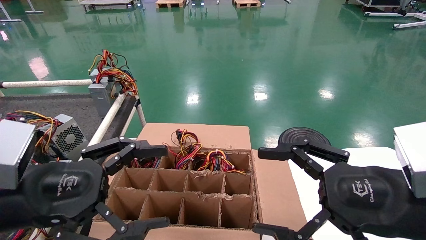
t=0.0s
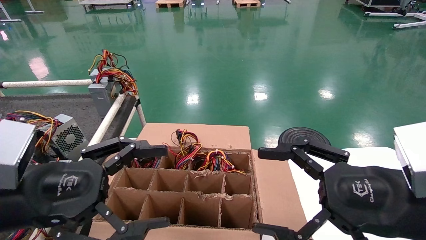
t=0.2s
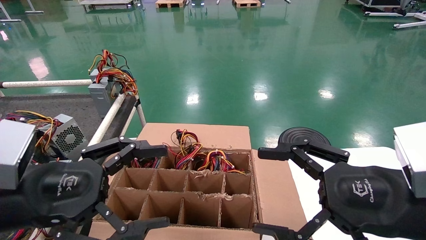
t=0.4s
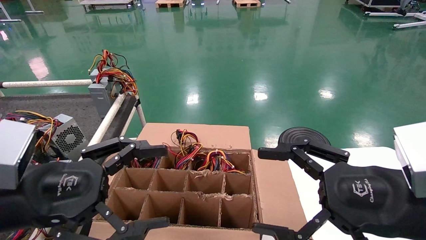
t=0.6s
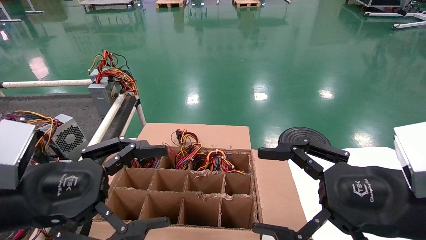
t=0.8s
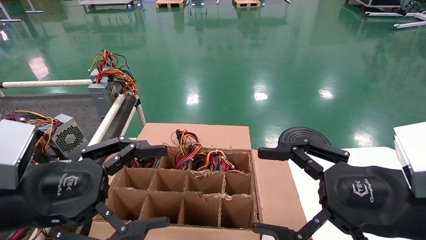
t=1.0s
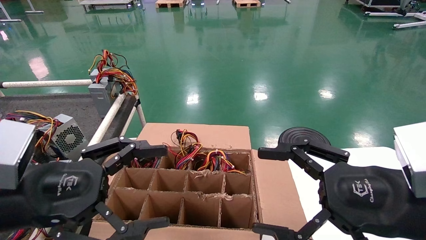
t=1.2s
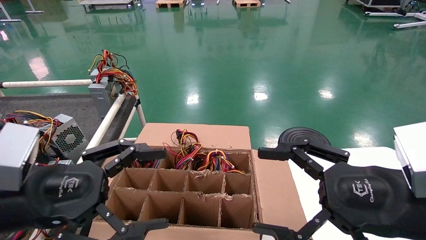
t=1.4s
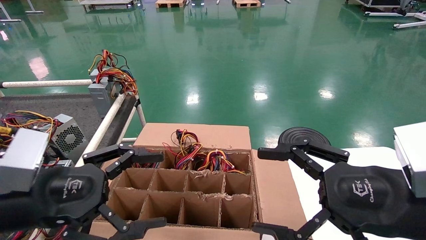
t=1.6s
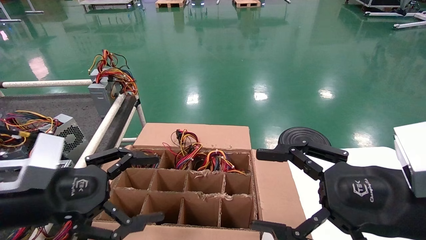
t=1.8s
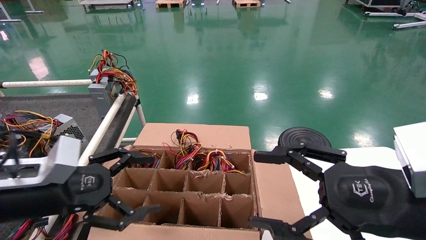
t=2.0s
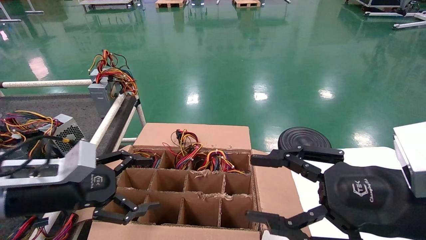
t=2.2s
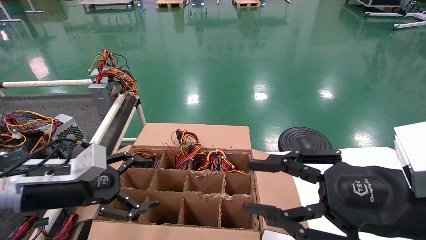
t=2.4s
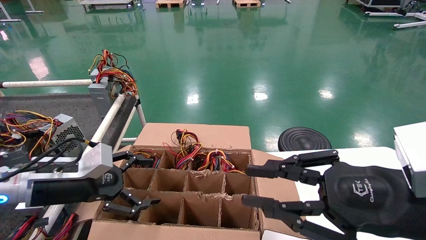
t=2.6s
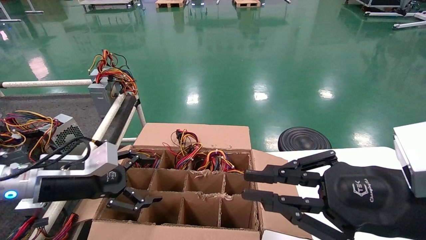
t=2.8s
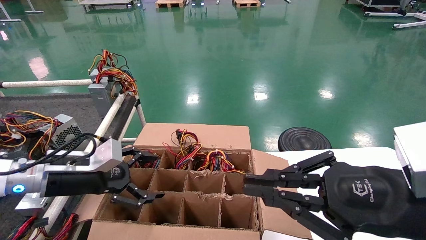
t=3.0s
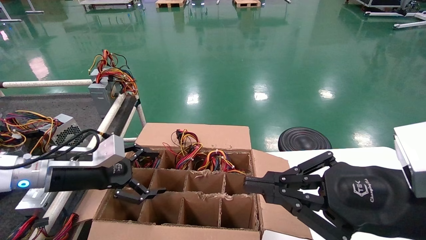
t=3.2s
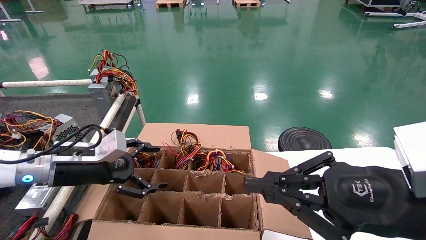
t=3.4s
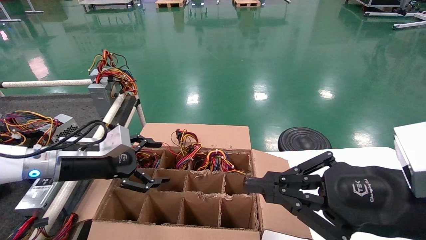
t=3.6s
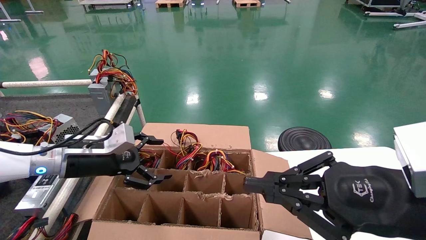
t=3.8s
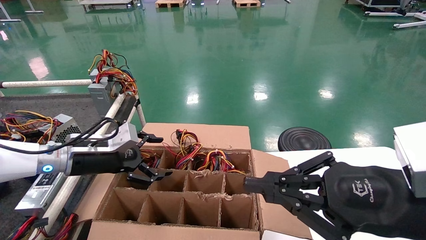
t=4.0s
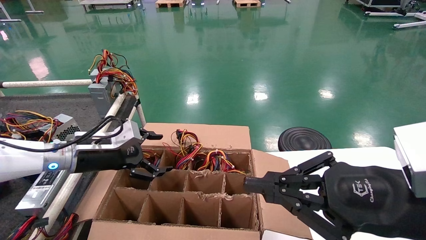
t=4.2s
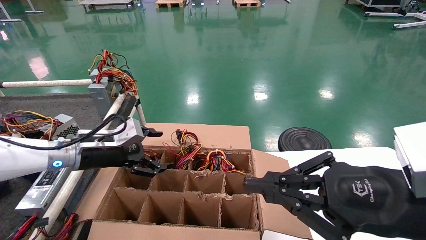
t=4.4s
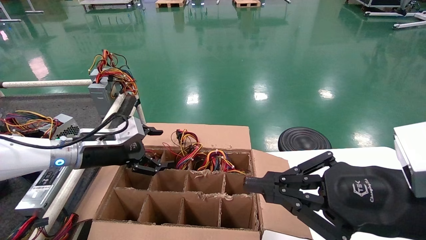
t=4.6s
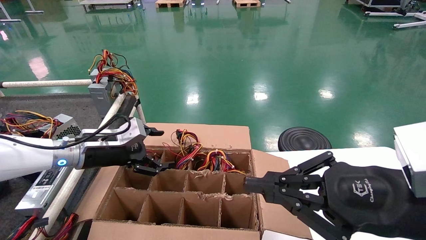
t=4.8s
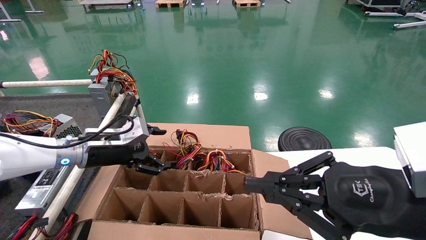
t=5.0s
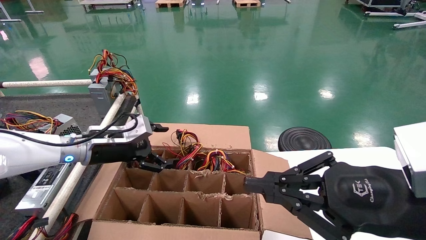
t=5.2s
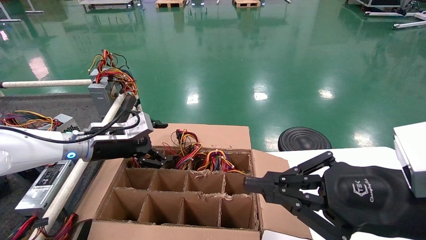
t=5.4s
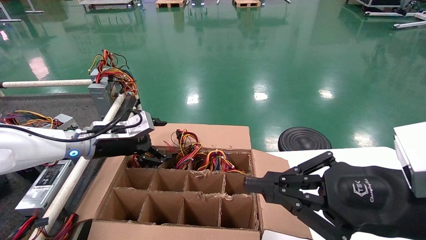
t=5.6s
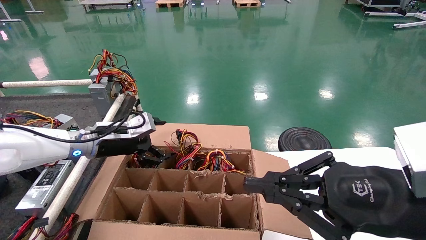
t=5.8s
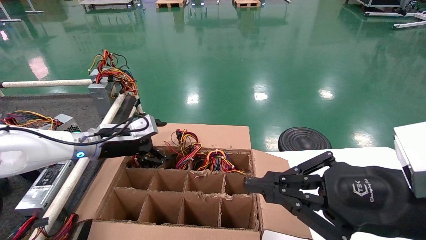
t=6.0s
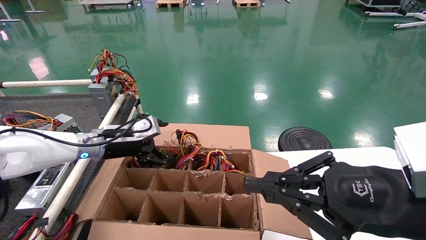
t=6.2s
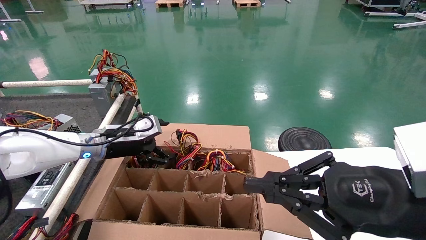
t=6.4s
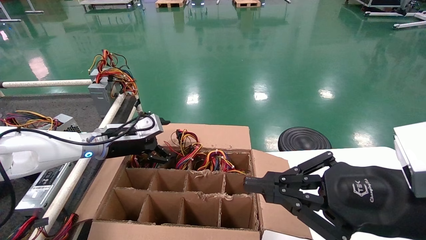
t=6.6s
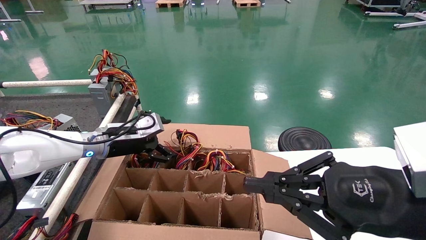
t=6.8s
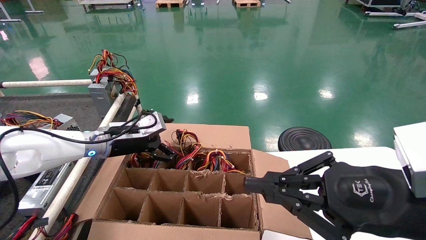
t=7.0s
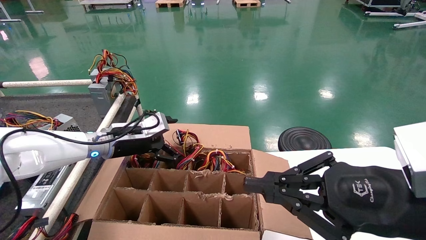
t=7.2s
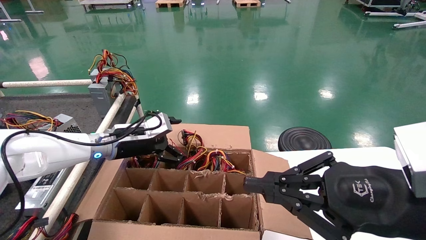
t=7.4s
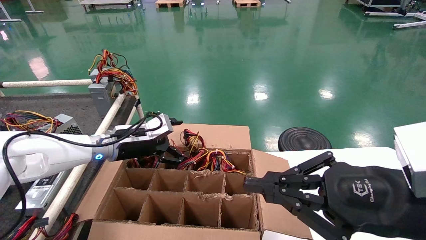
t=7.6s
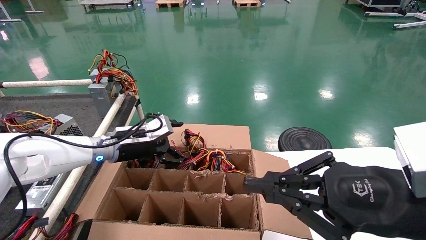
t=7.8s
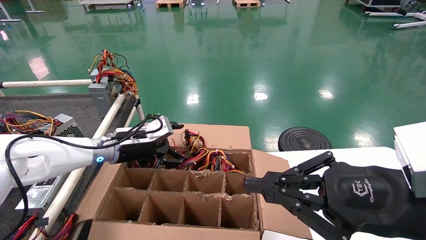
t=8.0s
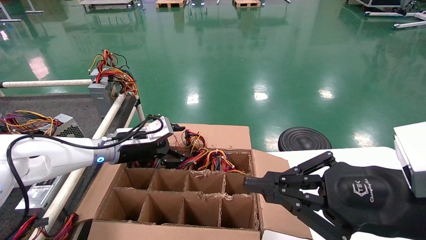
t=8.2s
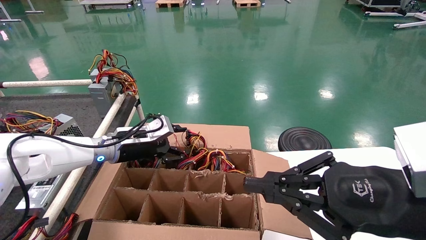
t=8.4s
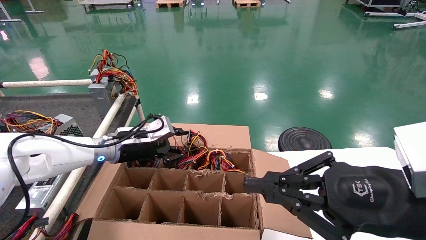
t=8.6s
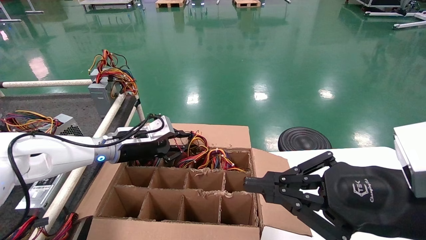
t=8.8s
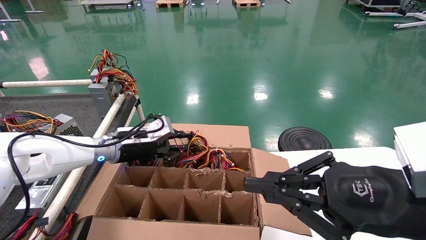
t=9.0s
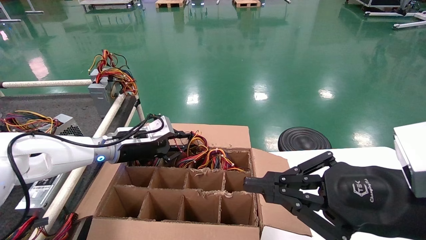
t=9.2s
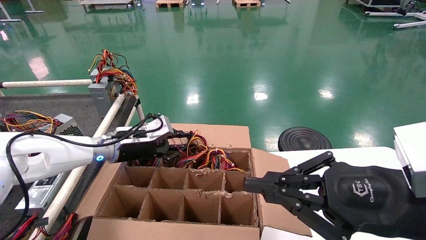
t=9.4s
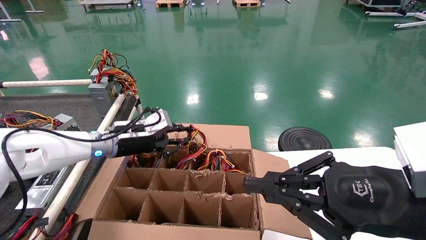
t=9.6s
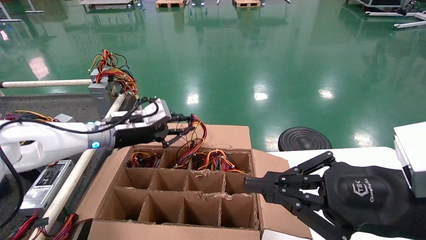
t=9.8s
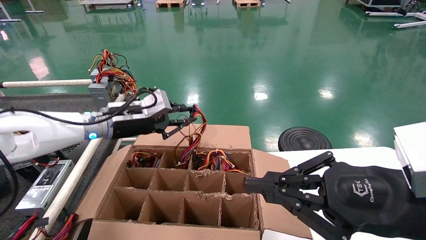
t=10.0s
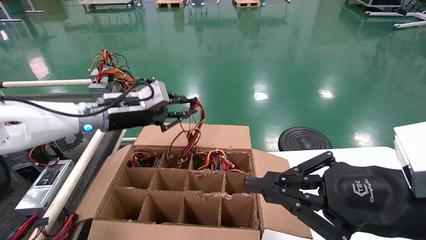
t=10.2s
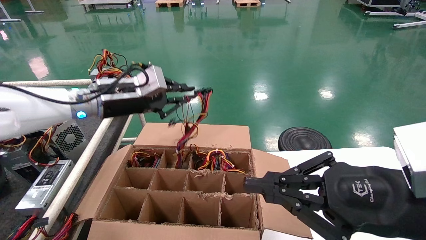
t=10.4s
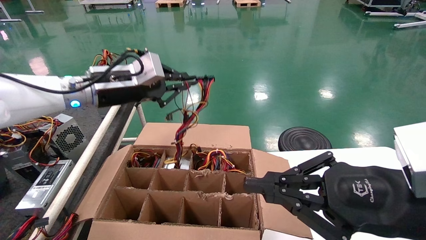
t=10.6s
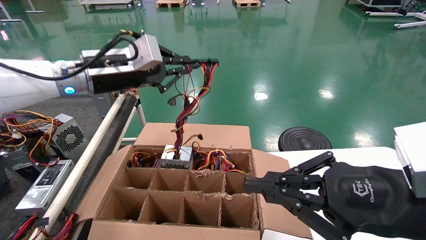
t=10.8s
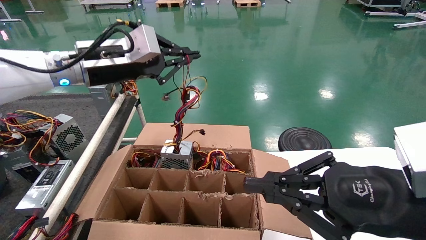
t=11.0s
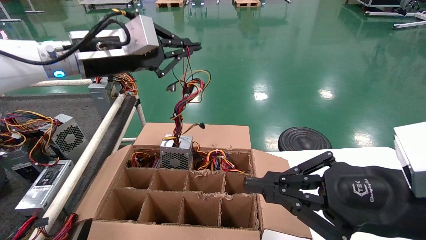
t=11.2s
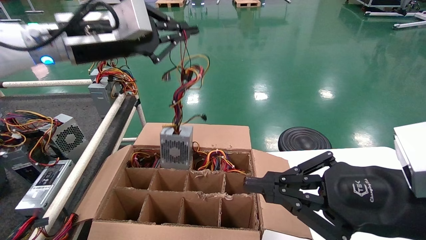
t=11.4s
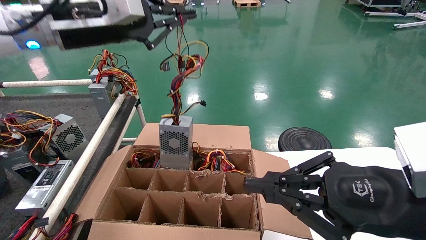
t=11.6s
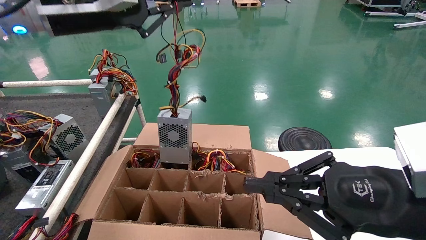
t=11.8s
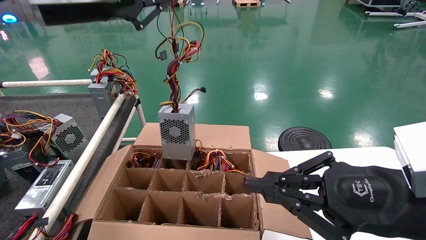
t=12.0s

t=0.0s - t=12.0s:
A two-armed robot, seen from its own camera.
Step, t=1.0s - t=9.8s: Grab and lift the power supply from the large box.
t=0.0s - t=1.6s: The grippers make only small movements.
t=1.6s - t=3.0s: The right gripper closes its fingers. The left gripper goes roughly 15 cm forward.
t=3.0s - t=4.4s: The left gripper heads forward, covering roughly 5 cm.
t=4.4s - t=6.0s: The grippers make only small movements.
t=6.0s - t=7.6s: The grippers make only small movements.
t=7.6s - t=9.0s: The left gripper closes up.
t=9.0s - t=10.4s: The left gripper goes roughly 15 cm upward.
t=10.4s - t=12.0s: The left gripper goes approximately 20 cm upward and backward.

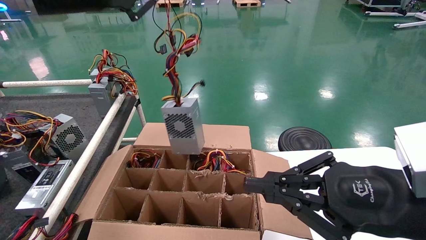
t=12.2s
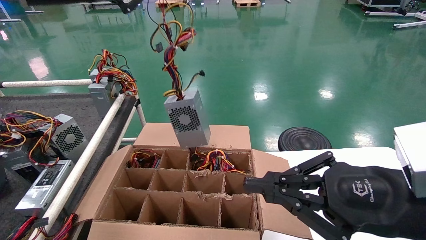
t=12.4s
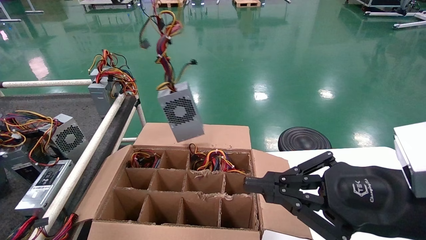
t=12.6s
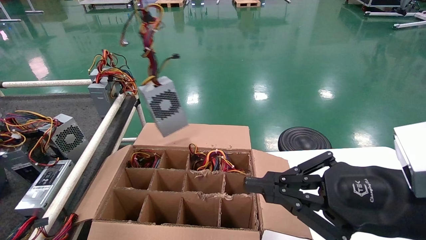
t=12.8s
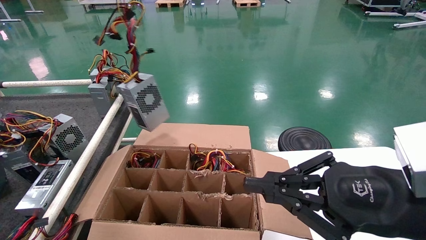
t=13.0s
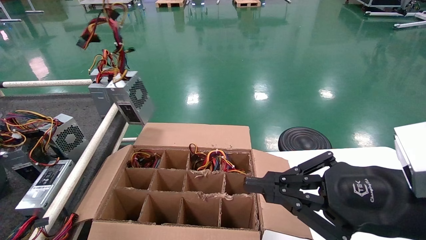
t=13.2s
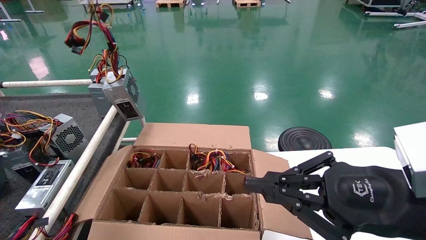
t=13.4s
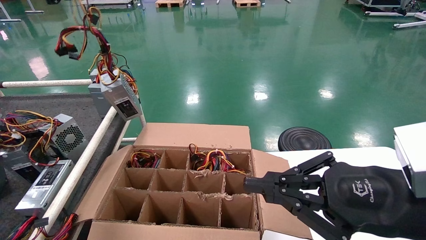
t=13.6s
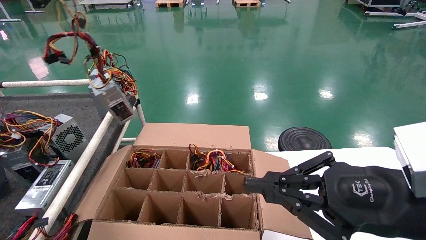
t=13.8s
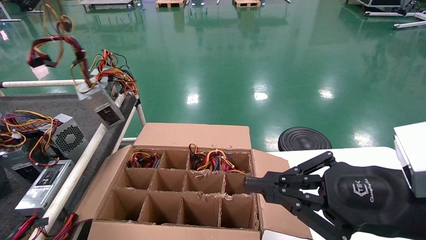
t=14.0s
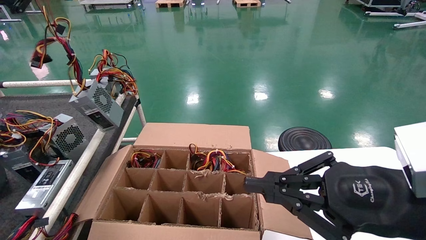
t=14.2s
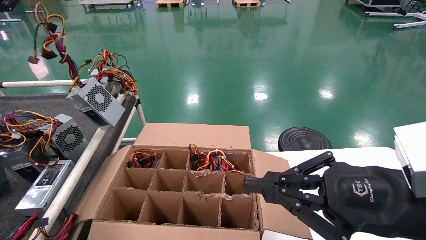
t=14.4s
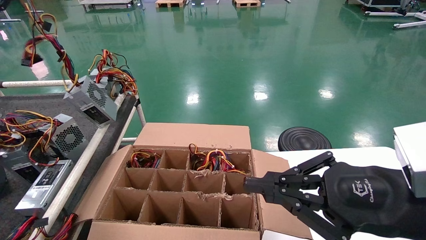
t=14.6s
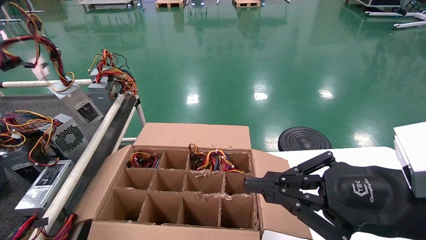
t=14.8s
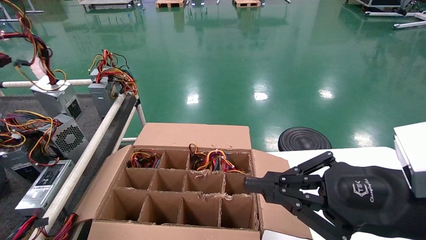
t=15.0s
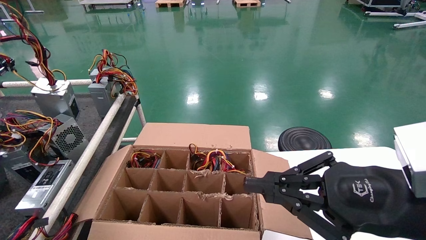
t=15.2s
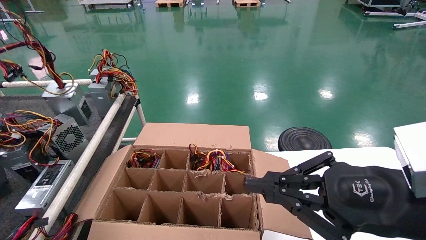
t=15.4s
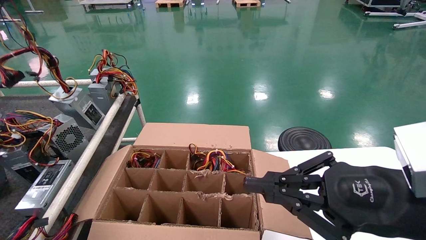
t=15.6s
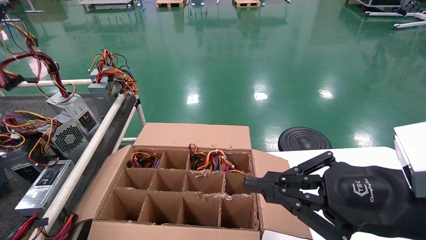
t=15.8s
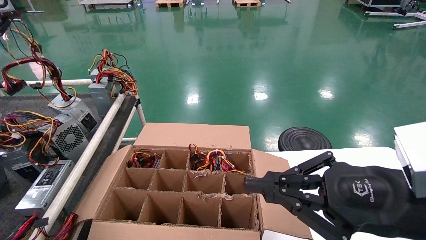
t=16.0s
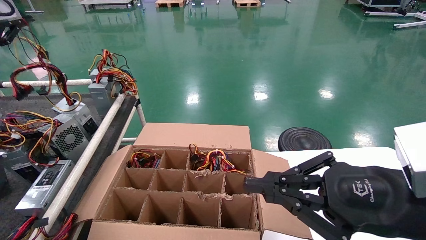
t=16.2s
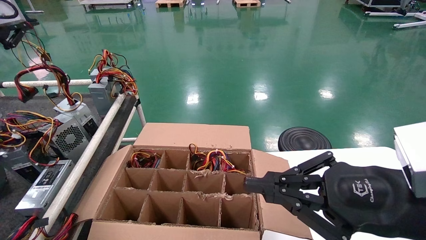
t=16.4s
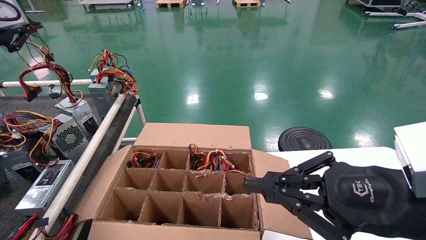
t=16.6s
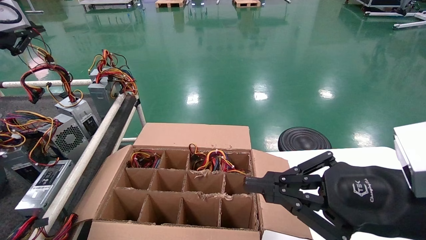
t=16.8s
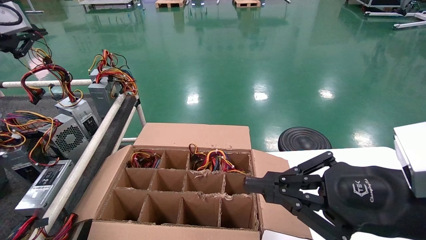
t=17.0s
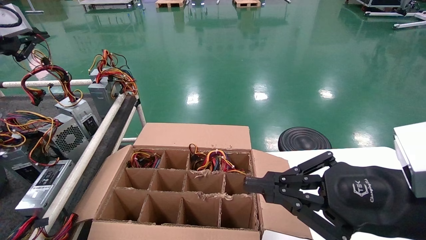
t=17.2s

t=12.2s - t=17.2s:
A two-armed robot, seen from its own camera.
t=12.2s - t=13.8s: The left gripper shifts approximately 15 cm to the left.
t=13.8s - t=15.6s: The left gripper travels to the left by about 10 cm.
t=15.6s - t=17.2s: The left gripper moves downward, about 5 cm.
